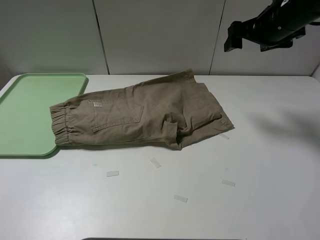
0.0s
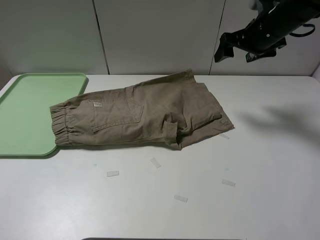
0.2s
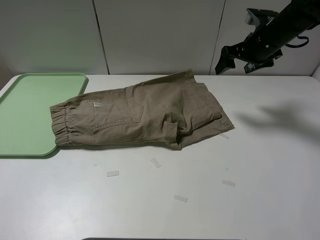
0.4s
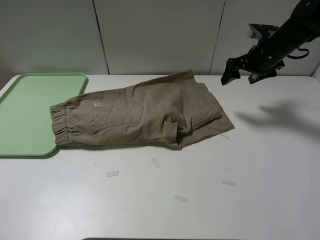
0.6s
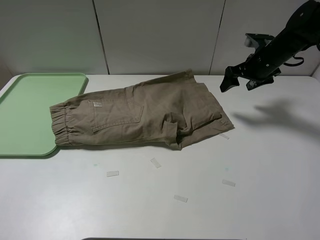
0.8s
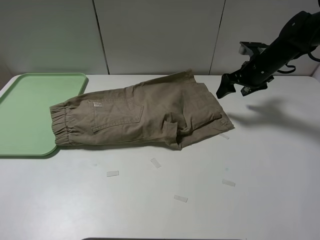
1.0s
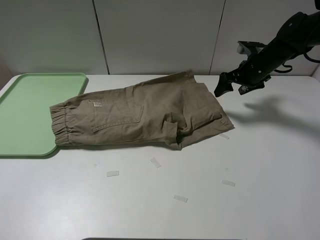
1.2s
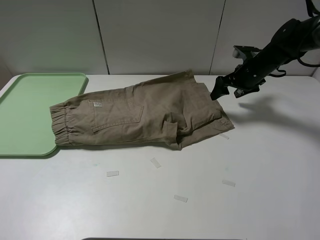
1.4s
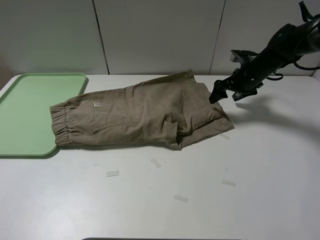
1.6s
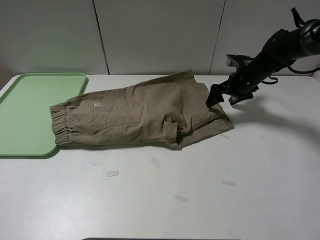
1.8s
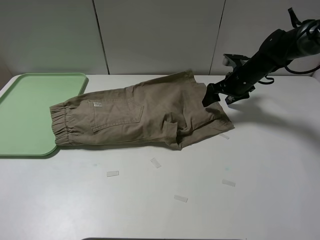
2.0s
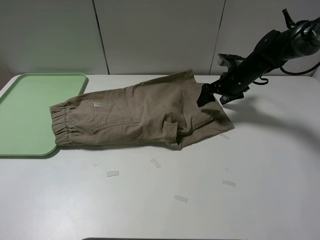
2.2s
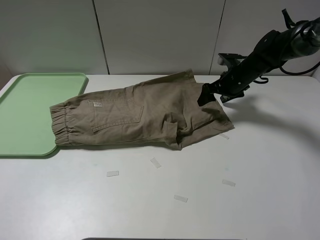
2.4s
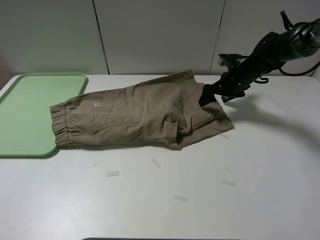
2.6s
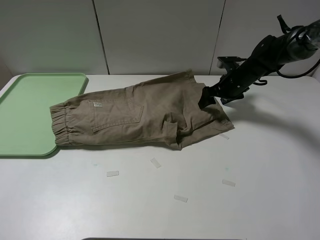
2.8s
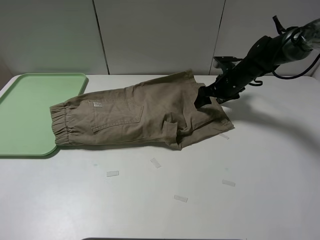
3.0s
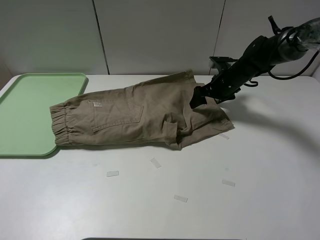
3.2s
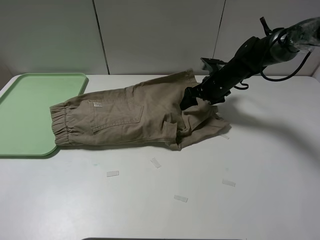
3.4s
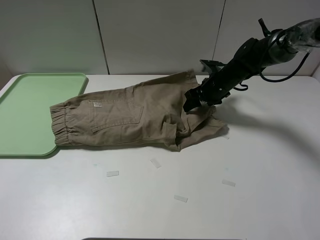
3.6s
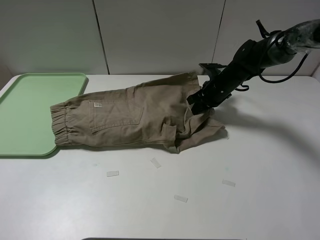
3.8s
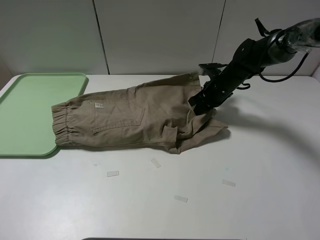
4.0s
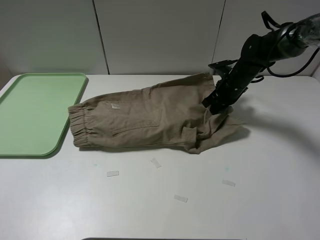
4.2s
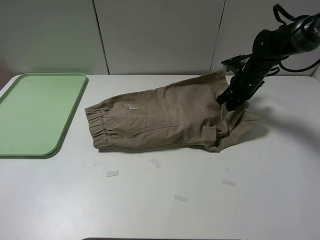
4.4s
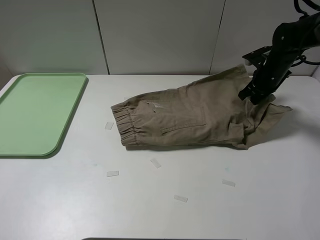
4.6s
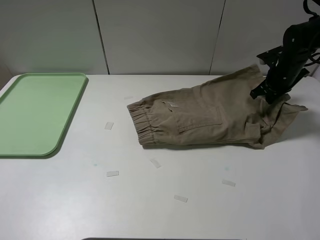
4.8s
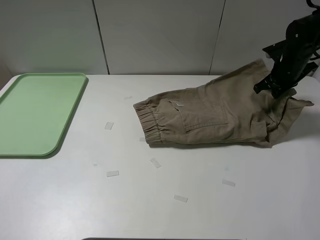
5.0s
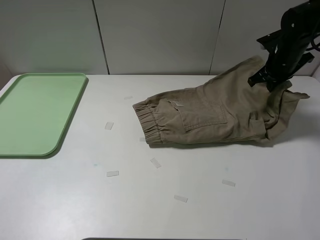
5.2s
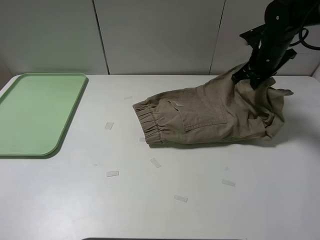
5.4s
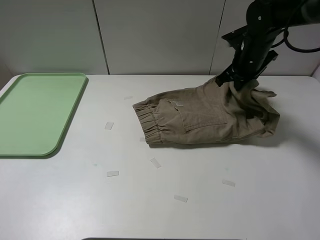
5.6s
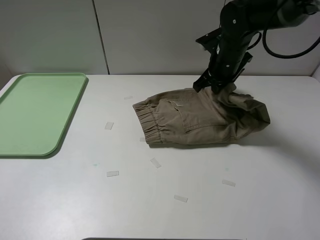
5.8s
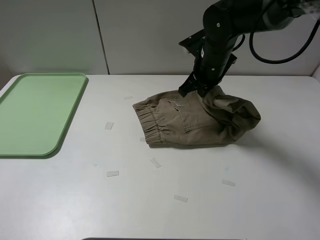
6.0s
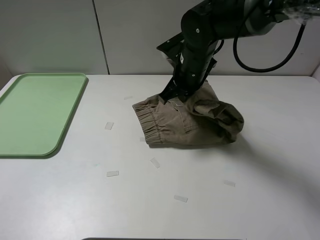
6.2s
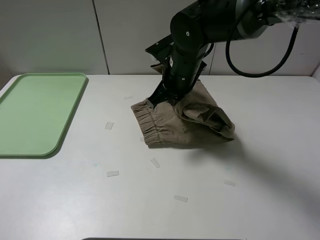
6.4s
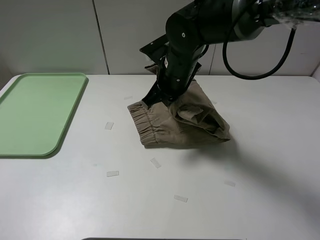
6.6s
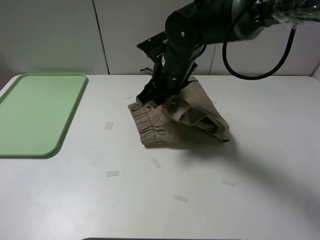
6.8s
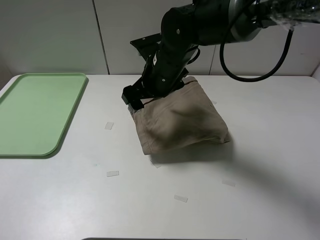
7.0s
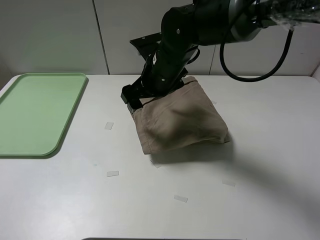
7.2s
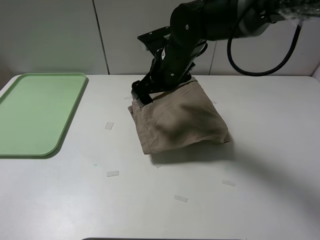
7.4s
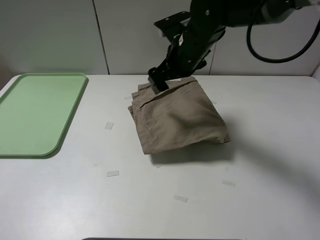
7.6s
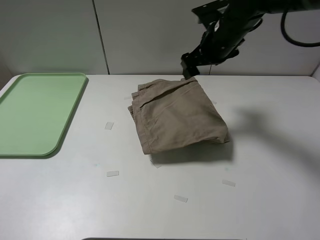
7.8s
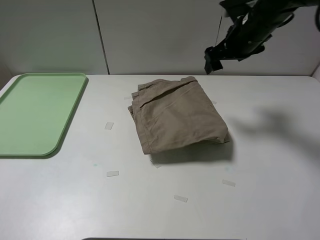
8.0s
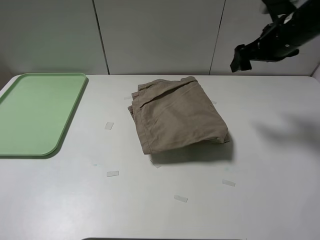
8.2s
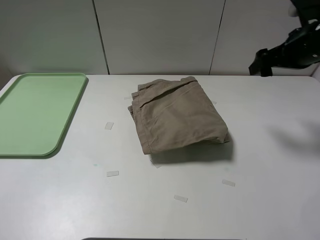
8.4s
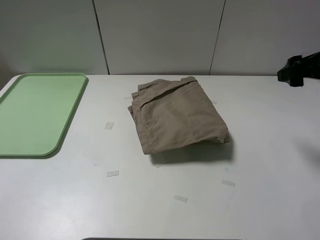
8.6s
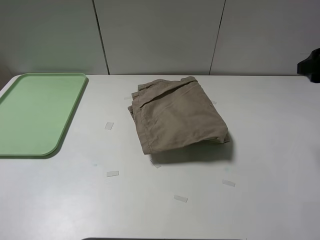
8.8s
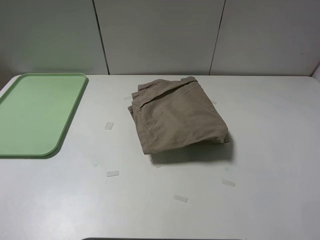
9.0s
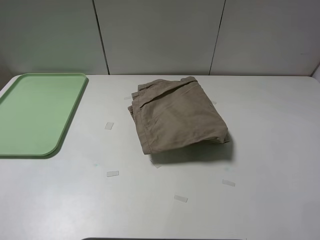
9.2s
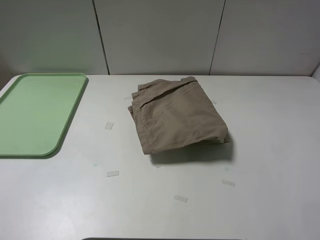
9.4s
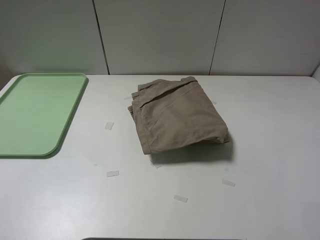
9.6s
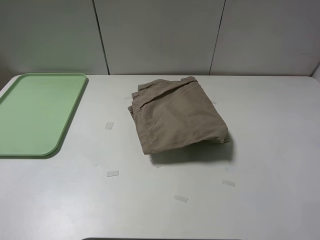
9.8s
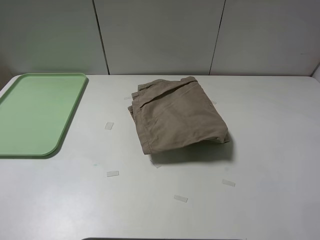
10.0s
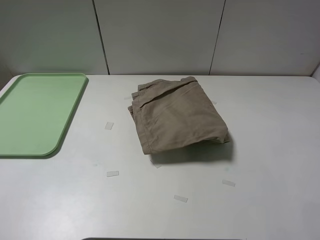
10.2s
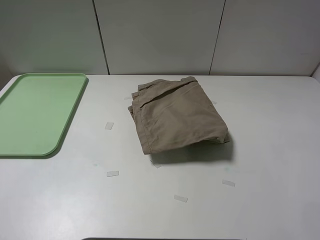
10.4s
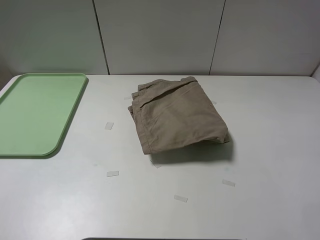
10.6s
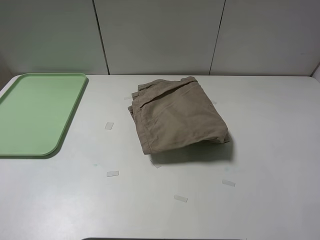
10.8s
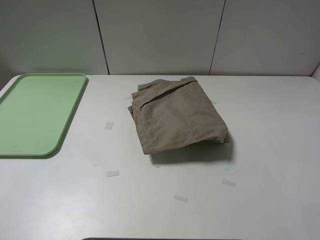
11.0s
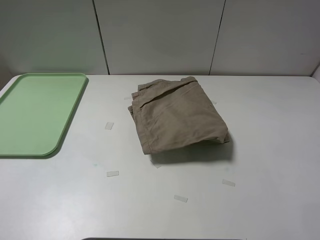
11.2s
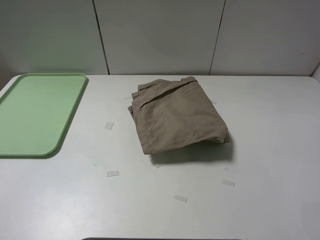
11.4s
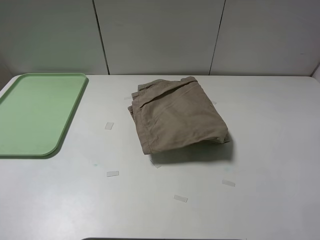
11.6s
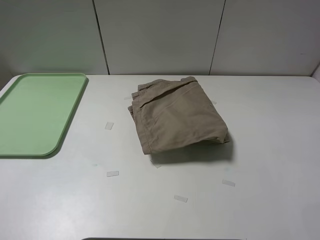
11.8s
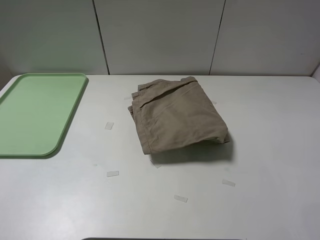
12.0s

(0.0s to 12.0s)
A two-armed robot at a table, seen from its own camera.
Task of the whole recording: fold the khaki jeans in half with two grippers, then fold them in half again, and use the left claw to place the folded fold khaki jeans on the tray.
Step, 0.0s - 4.0s: Grasp the khaki trousers with the right gripper.
Step, 4.2s - 7.0s: Fold the khaki trousers from right to left with the right gripper.
0.0s - 1.6s: The right gripper moves downward, some 15 cm.
1.6s - 3.0s: The right gripper moves some 5 cm.
3.0s - 4.4s: The right gripper shifts by approximately 5 cm, and closes up.
4.4s - 6.0s: The right gripper travels to the left, upward and backward by some 20 cm.
6.0s - 7.6s: The right gripper moves roughly 10 cm to the left and comes back, and opens.
7.6s - 9.0s: The right gripper travels to the right, backward and upward by roughly 35 cm.

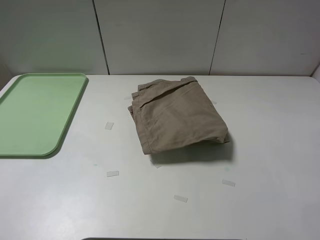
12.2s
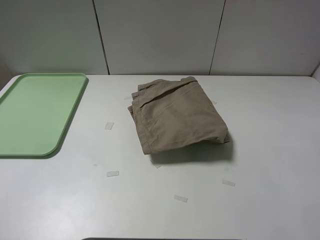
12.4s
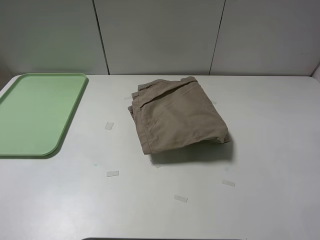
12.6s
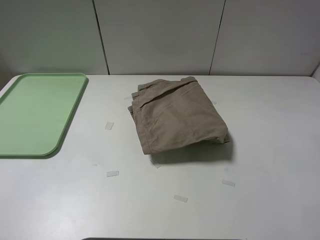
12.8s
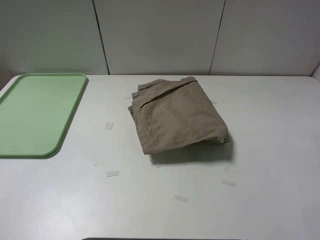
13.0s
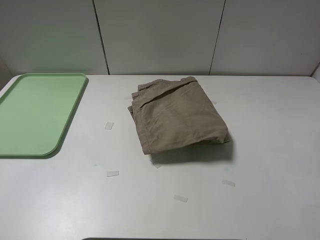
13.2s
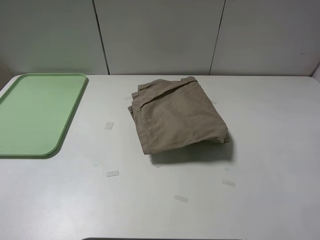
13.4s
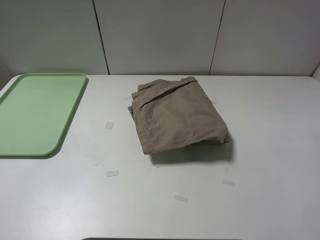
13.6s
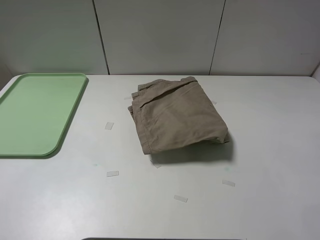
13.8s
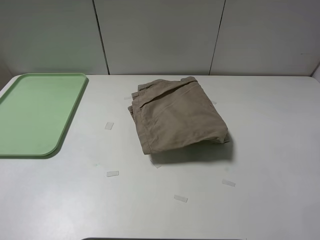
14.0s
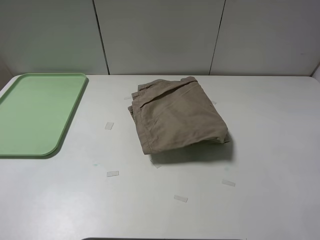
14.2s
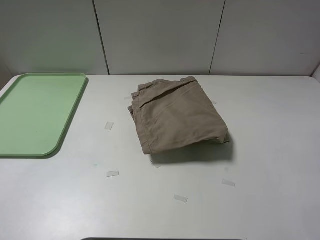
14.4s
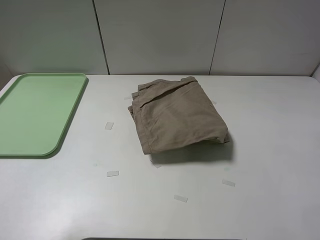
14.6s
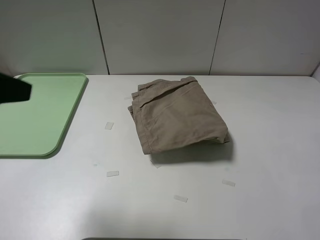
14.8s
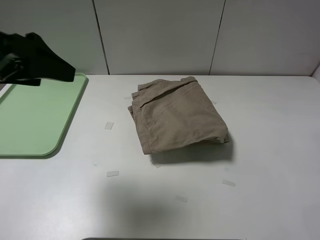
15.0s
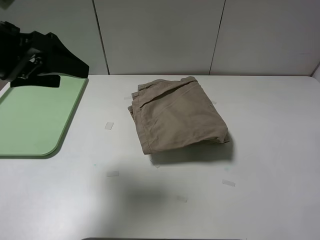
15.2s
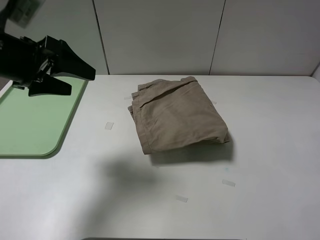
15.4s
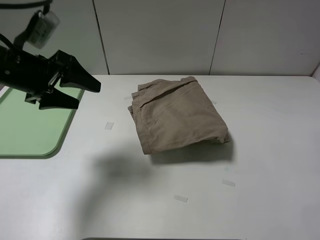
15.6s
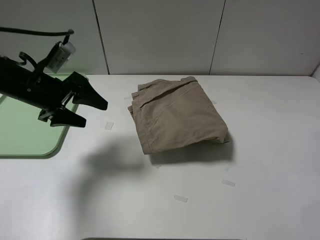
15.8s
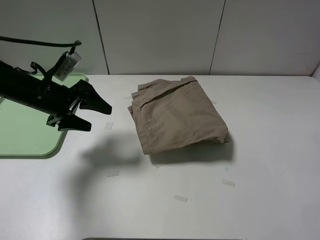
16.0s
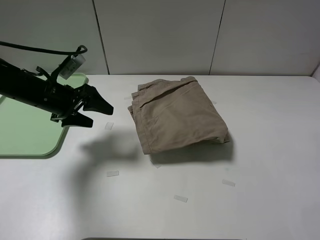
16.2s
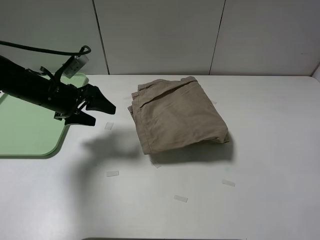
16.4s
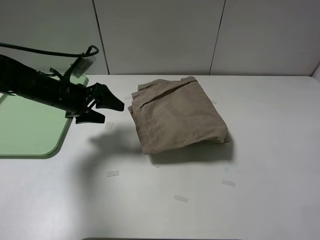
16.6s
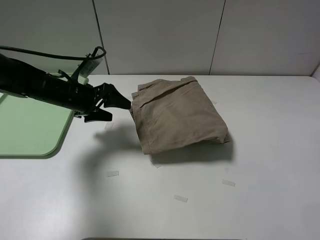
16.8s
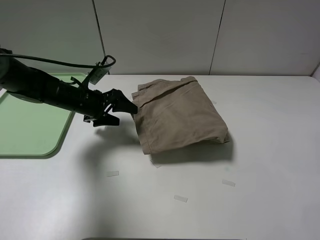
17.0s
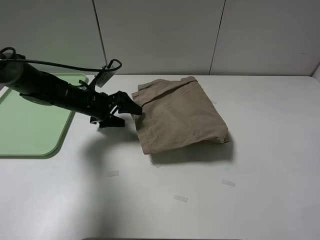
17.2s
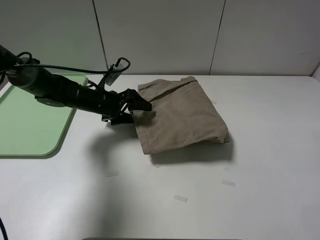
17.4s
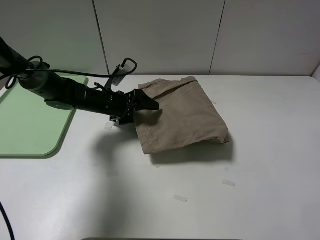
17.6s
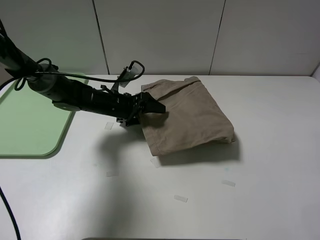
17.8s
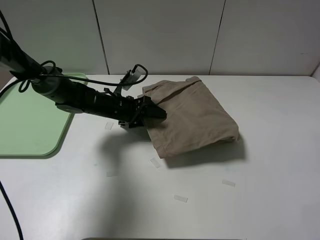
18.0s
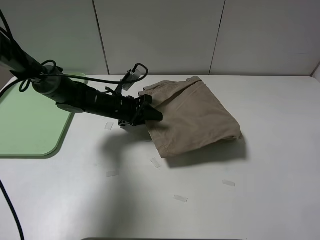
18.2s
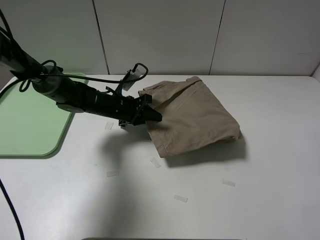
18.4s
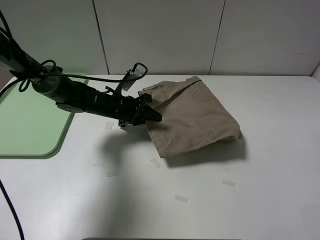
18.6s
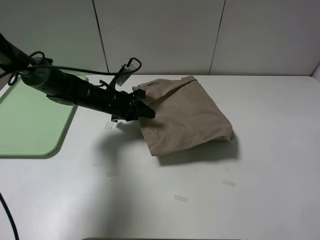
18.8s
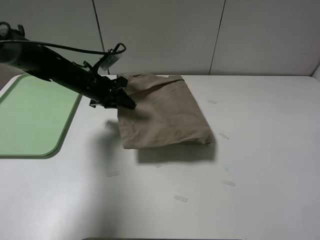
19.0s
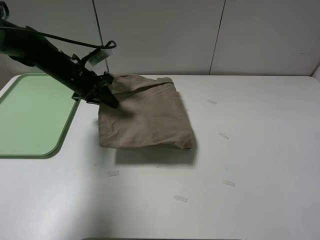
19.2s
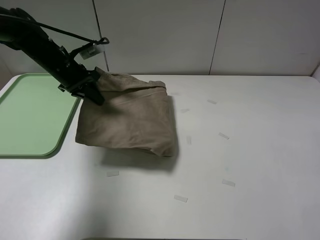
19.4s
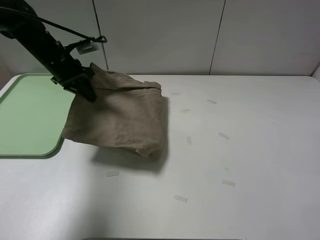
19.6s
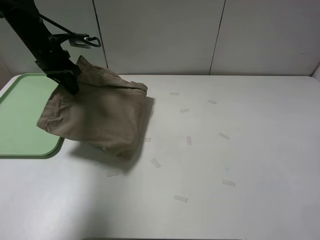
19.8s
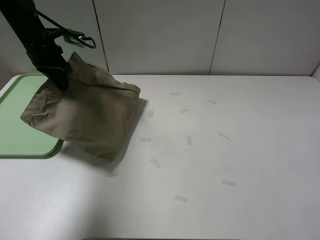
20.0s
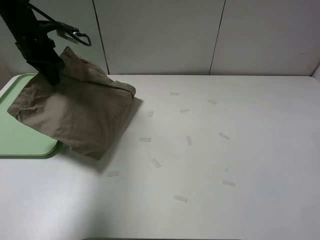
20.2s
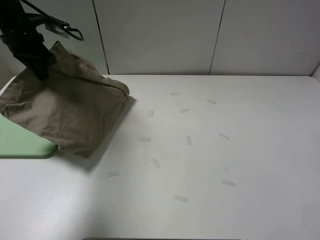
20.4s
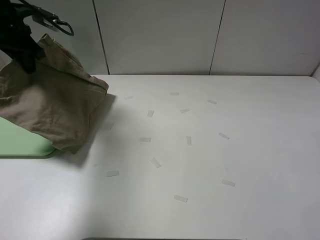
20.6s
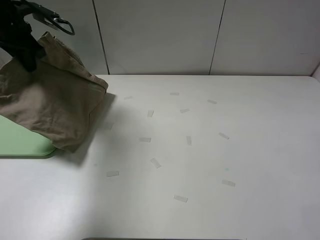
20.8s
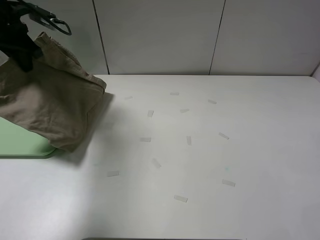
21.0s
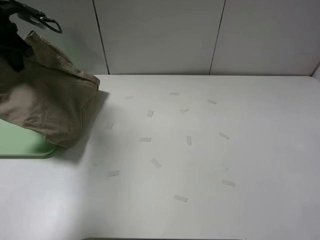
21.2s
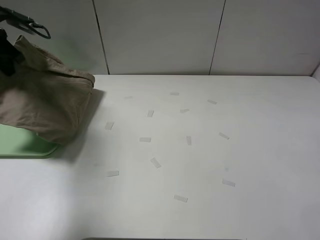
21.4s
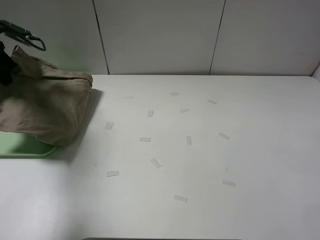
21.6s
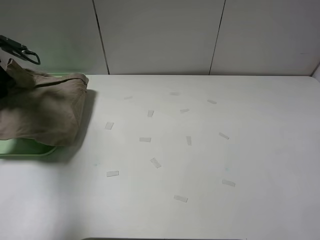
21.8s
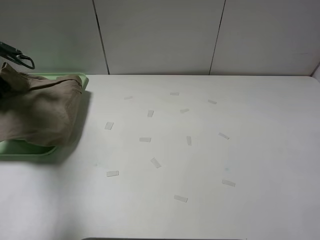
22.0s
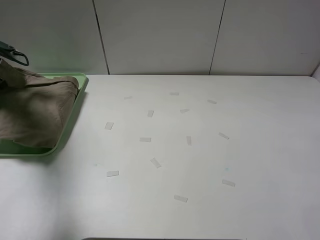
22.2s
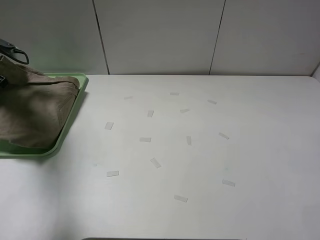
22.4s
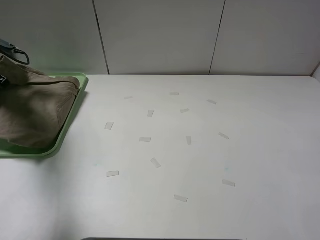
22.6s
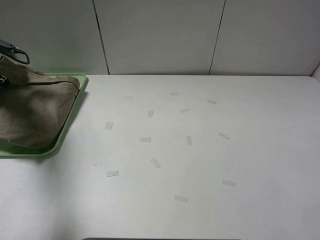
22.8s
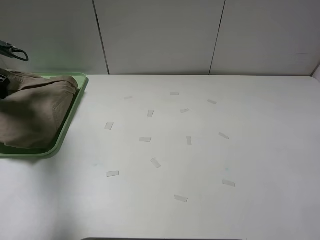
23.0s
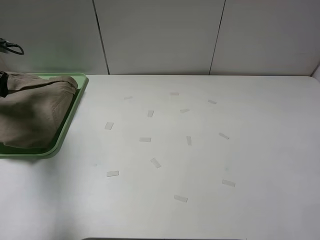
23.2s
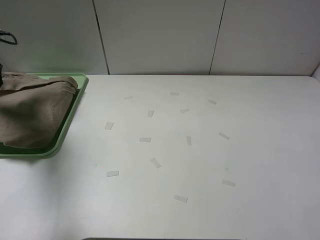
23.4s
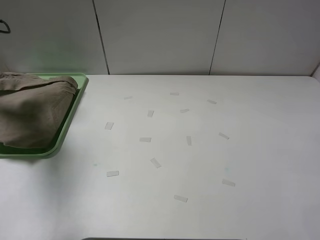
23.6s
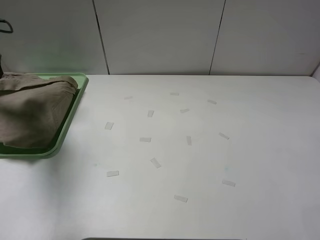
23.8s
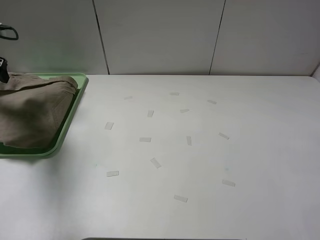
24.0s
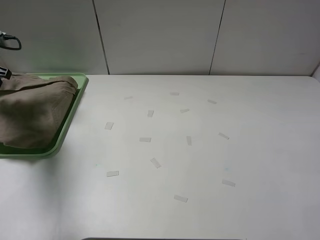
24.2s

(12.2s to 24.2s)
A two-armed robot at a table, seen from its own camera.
Task of the whole recording: fold the khaki jeans in half with two grippers, then fold them in half again, and use the left claw to place the folded fold khaki jeans on the tray.
Step, 12.2s - 18.4s: Grasp the khaki trousers with the left gripper.
Step, 18.6s - 23.0s: Place the folded khaki trousers on the green tray with the left gripper.
12.2s - 13.8s: Both grippers stay about where they are.
13.8s - 15.2s: The left gripper heads forward, covering about 25 cm.
15.2s - 16.6s: The left gripper heads downward and forward, covering some 20 cm.
16.6s - 18.2s: The left gripper goes about 10 cm to the right and downward, and closes up.
18.2s - 19.8s: The left gripper is displaced upward, to the left and forward by roughly 25 cm.
19.8s - 21.2s: The left gripper travels to the left and upward by about 10 cm.
21.2s - 22.6s: The left gripper travels to the left and downward by about 10 cm.
22.6s - 24.2s: The left gripper opens, then closes once more.
